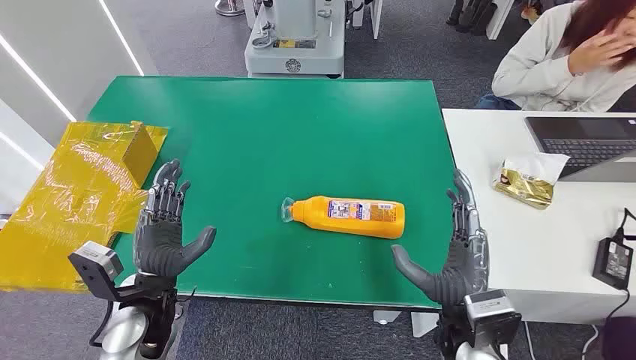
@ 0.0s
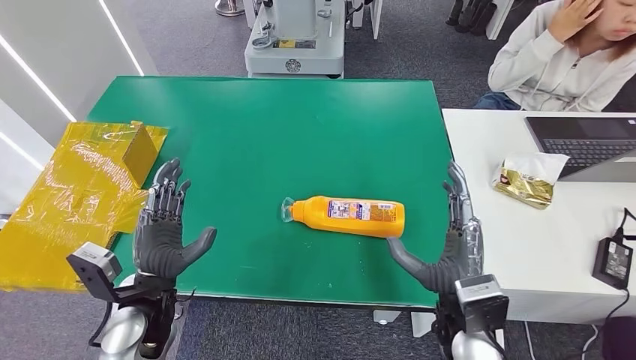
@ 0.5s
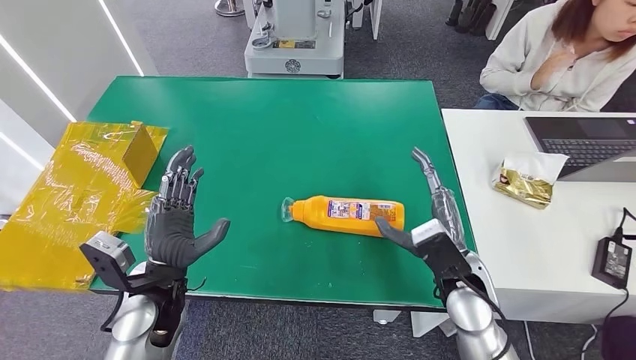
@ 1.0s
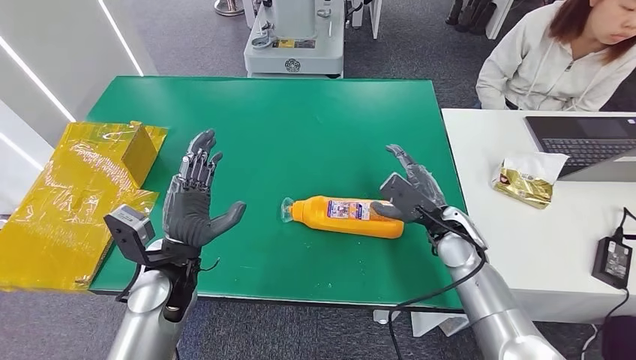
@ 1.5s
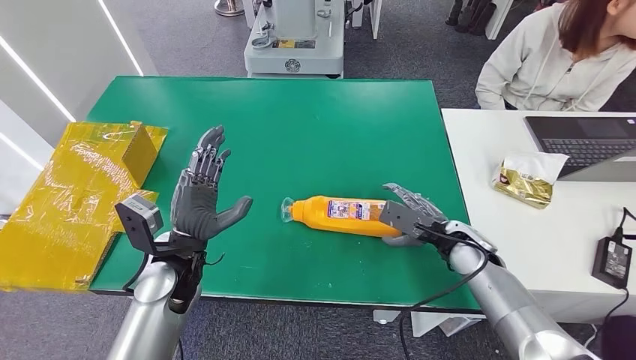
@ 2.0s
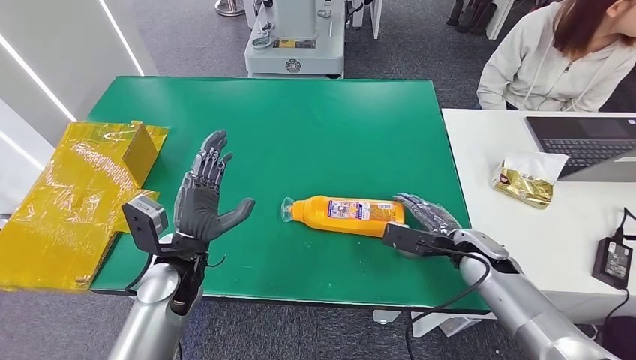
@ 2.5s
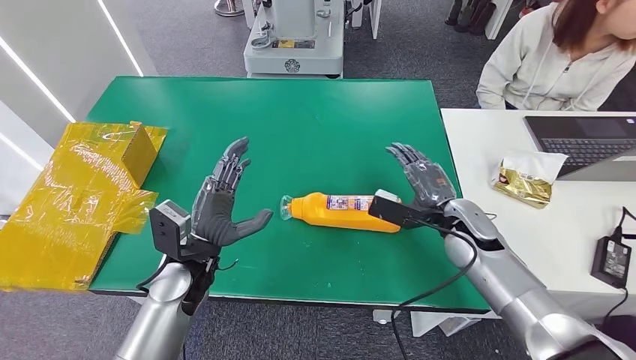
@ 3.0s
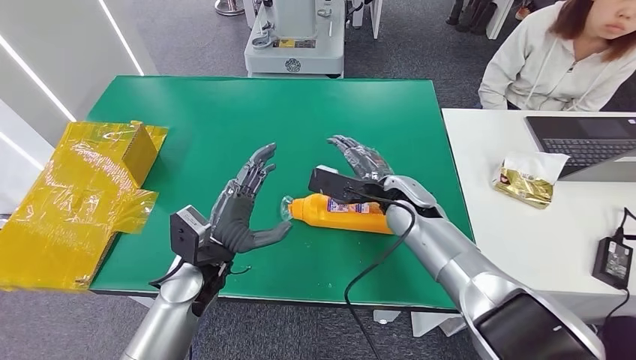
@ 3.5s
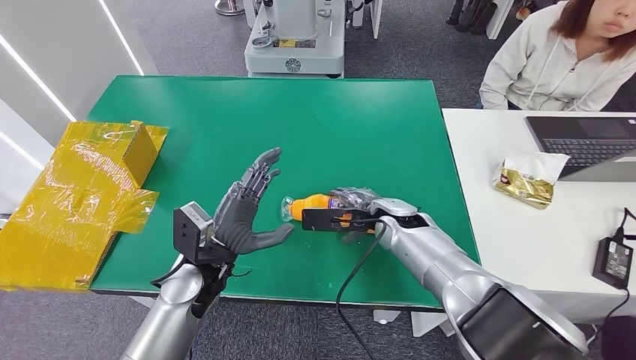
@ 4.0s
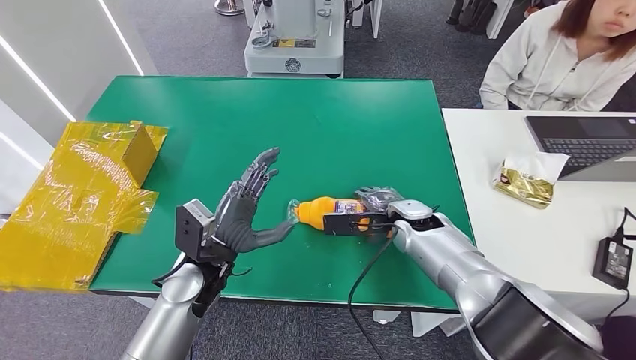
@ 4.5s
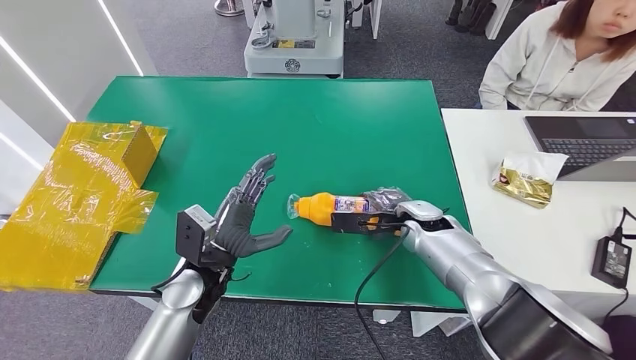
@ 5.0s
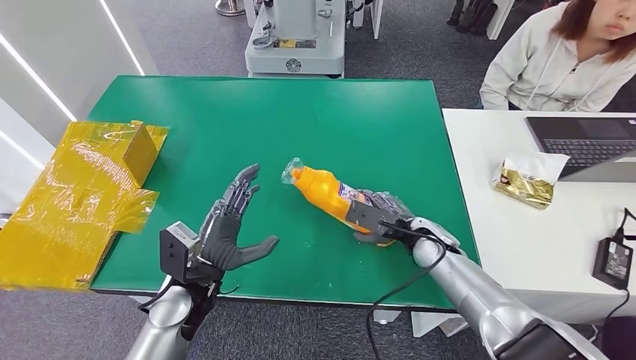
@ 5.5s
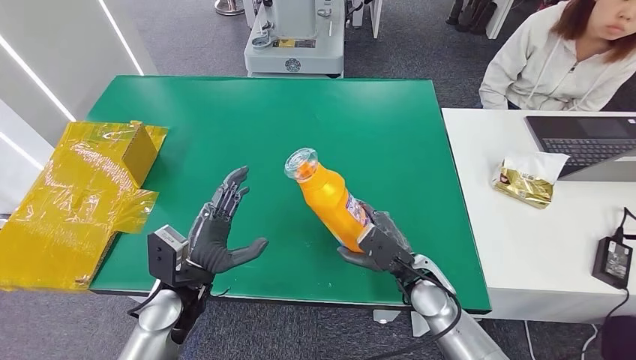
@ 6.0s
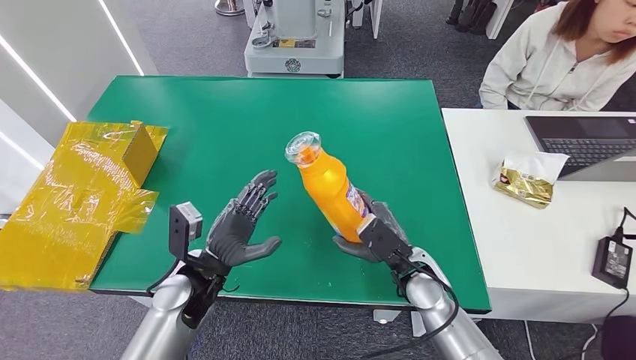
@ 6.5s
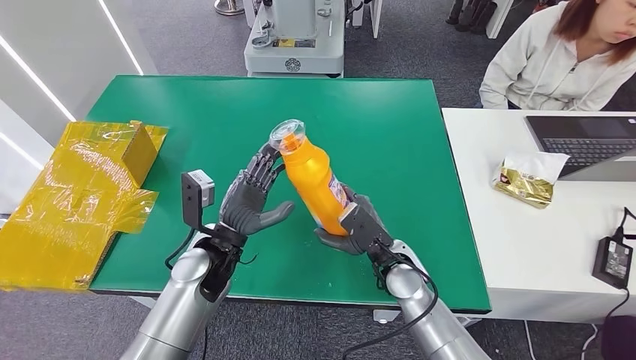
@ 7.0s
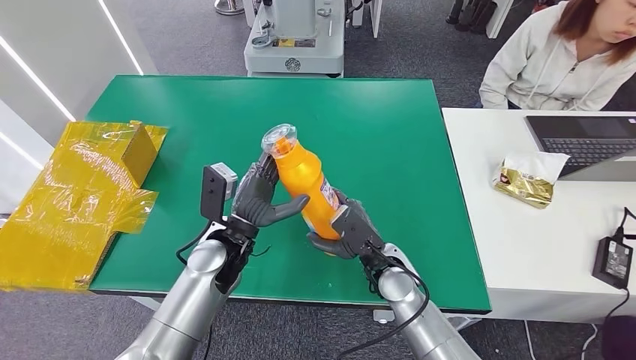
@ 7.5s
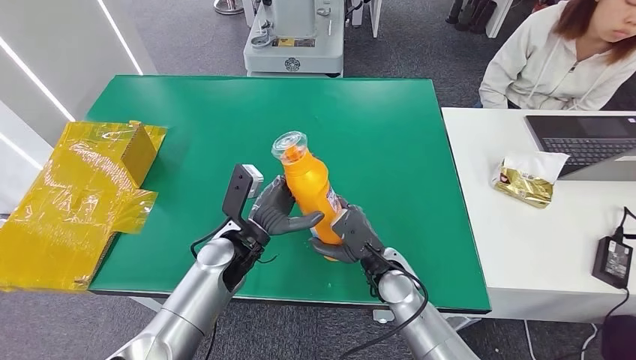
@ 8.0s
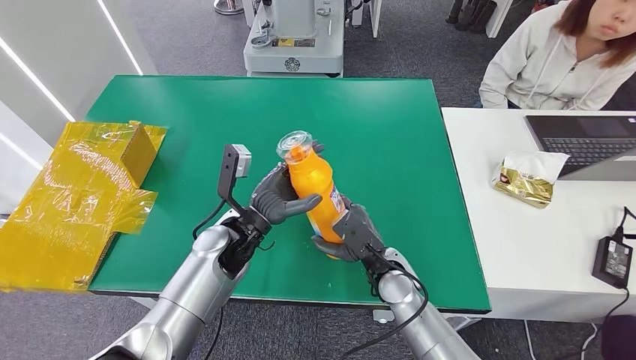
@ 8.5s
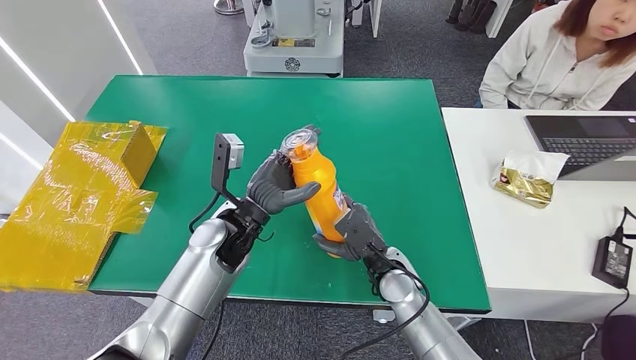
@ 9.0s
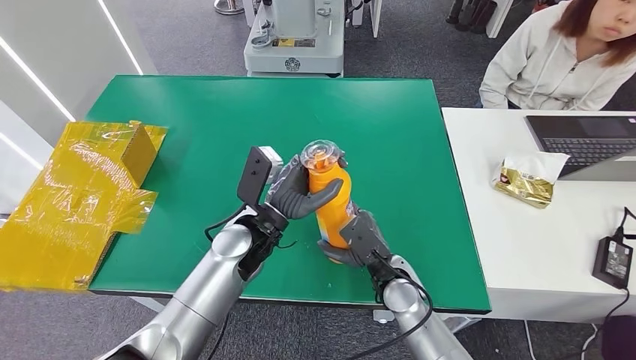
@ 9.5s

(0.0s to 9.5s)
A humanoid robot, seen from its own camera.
Step, 0.0s - 5.5s: Pick up the bottle from the table.
2.0s - 4.0s: The right hand shifts about 15 cm to the left.
4.0s - 5.5s: The right hand heads to the right, covering about 5 cm.
5.5s - 7.5s: The left hand heads forward, covering about 5 cm. The right hand travels to the left and backward by approximately 10 cm.
7.5s - 9.5s: The left hand shifts by roughly 5 cm.

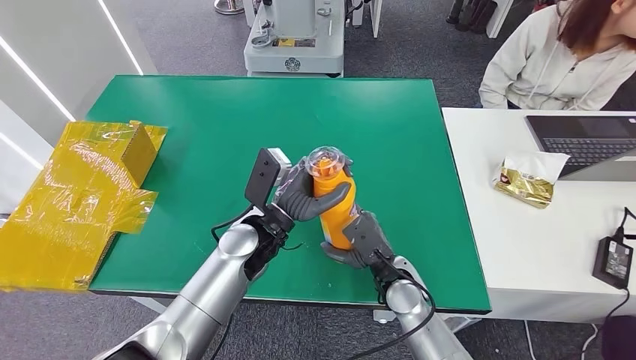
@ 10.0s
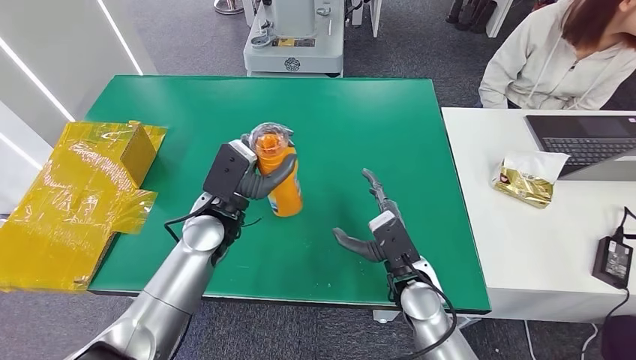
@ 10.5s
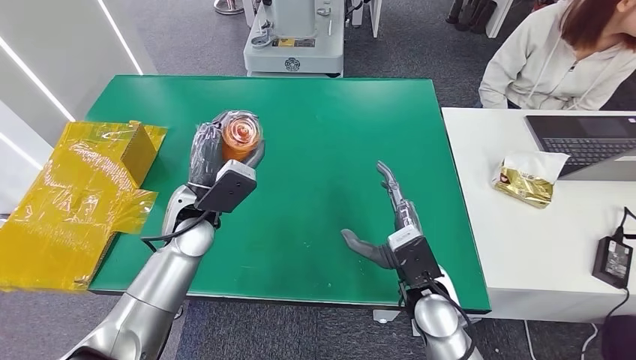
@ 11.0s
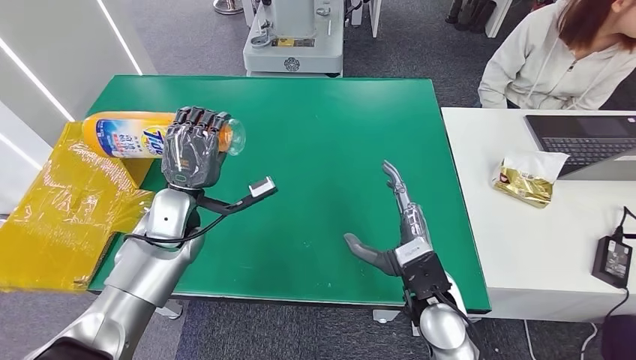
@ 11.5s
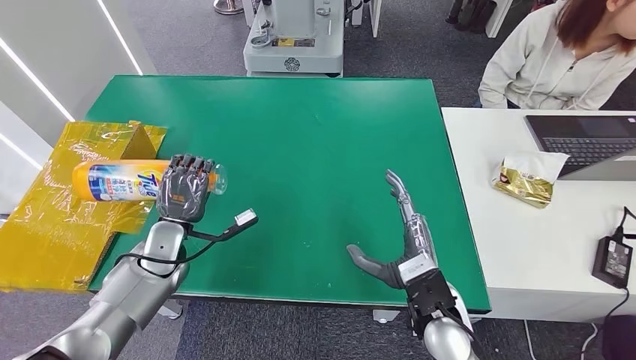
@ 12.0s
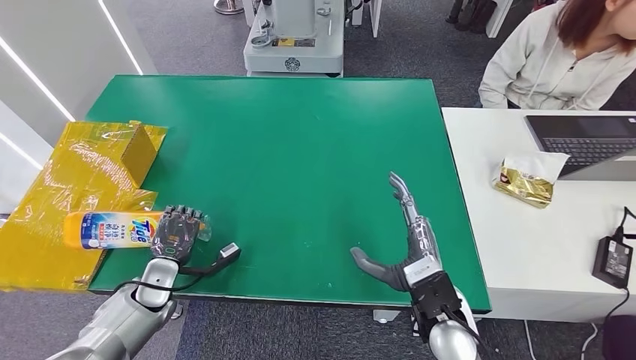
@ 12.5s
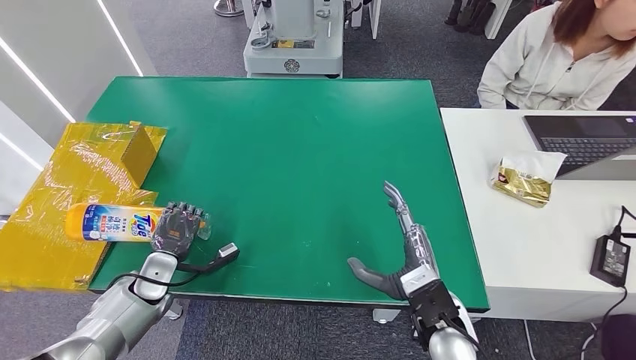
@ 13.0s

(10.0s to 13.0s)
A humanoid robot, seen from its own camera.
Step, 10.0s - 13.0s: Turn the bottle to the front side.
10.0s - 11.5s: The right hand shifts approximately 5 cm upward, while the left hand goes approximately 15 cm to the left.
11.5s - 13.0s: The left hand travels downward, to the left and backward by approximately 20 cm.
